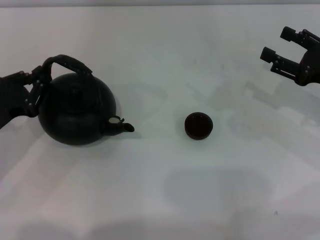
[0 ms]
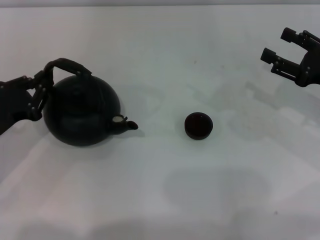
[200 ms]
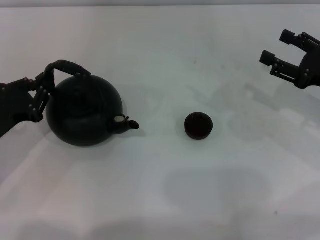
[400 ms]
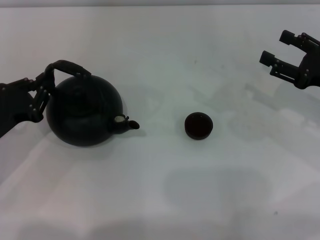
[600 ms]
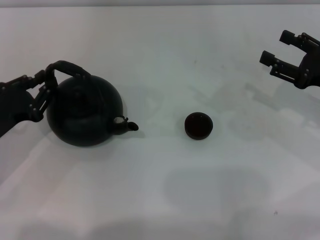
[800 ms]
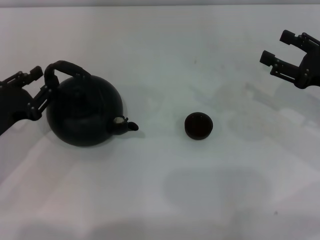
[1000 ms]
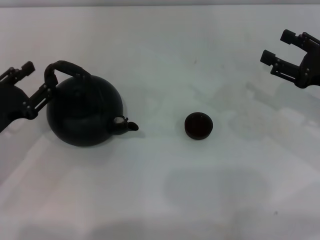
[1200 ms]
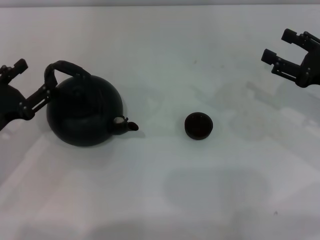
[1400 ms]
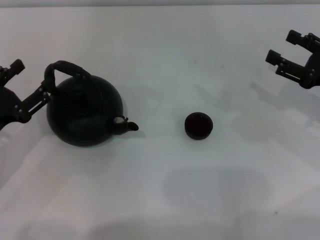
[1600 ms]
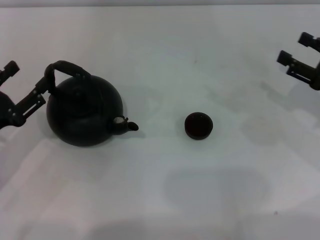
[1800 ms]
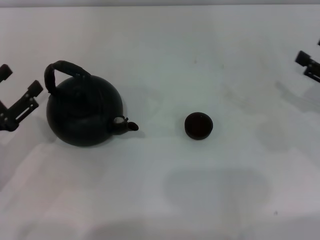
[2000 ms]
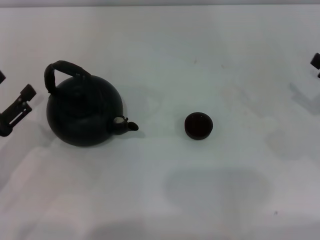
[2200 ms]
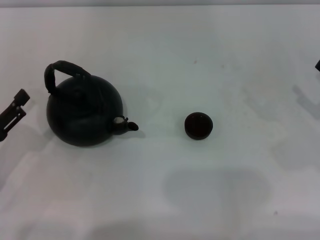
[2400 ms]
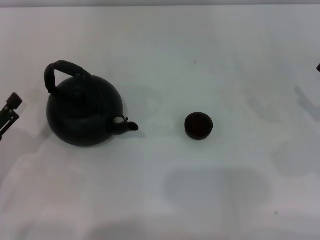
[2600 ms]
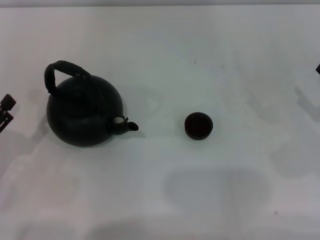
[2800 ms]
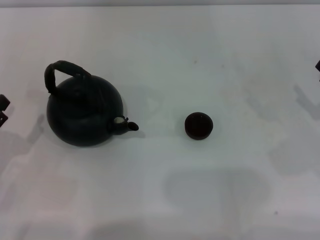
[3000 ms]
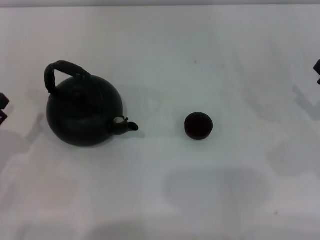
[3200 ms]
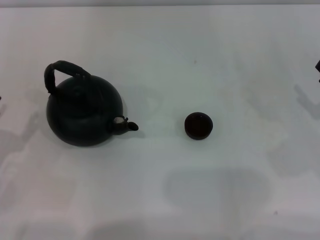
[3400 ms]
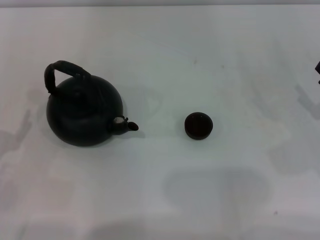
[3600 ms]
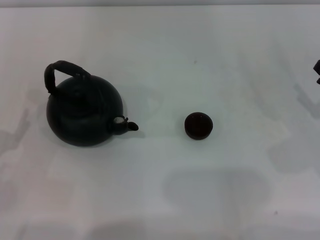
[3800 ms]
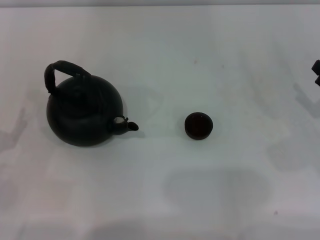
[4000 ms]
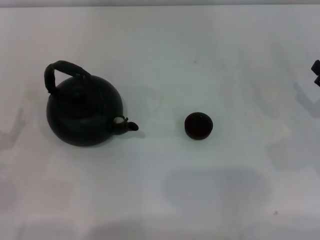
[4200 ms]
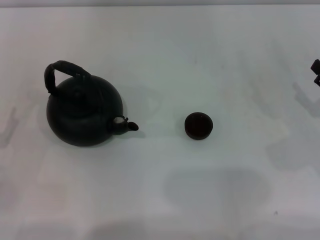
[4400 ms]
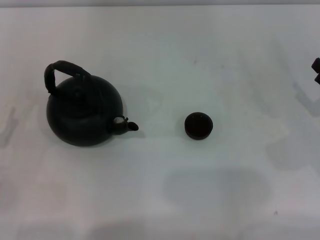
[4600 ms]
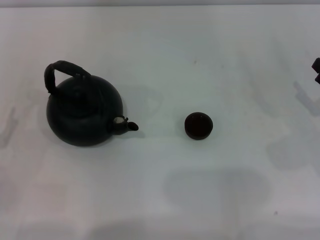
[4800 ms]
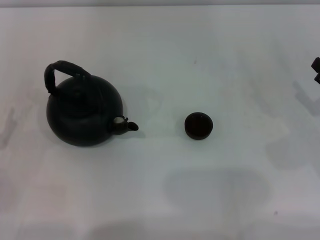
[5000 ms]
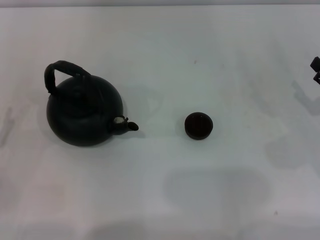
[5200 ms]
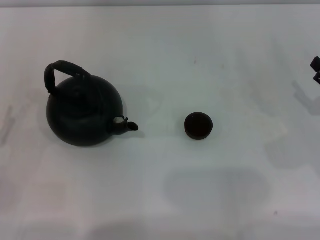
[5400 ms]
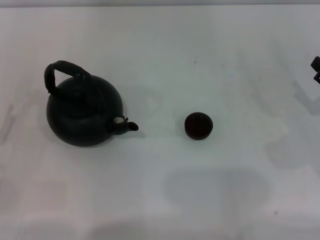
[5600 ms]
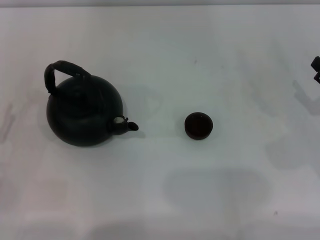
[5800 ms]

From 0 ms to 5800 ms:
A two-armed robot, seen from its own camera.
Task of the whole recording: Grasp the handle of the teapot with one hand and pour tea into the teacup.
Step, from 0 ms to 2000 ms: Put down the teapot with the left gripper.
From 0 ms to 1400 ms: The left gripper opens up.
From 1400 ms to 2800 ms: Both grippers move backward, about 5 cm.
From 4400 ms to 5800 ms: Both grippers stay put.

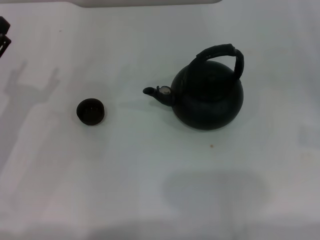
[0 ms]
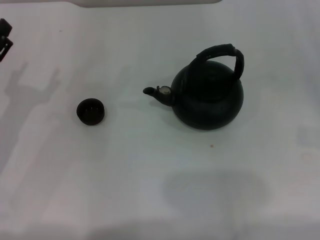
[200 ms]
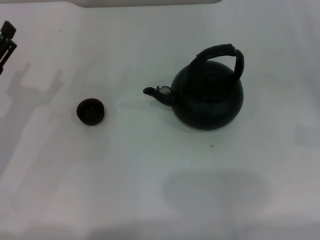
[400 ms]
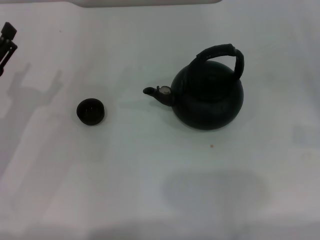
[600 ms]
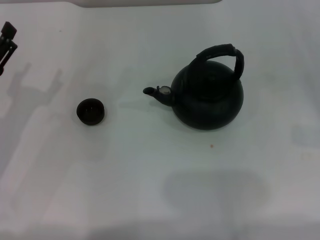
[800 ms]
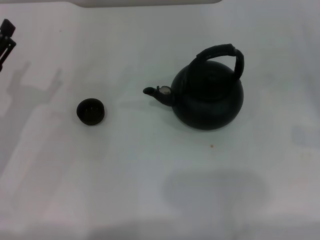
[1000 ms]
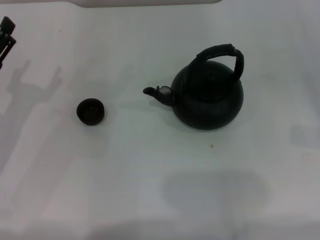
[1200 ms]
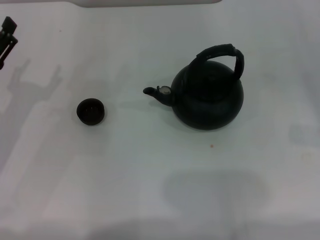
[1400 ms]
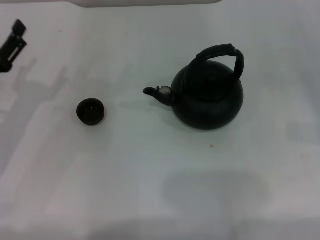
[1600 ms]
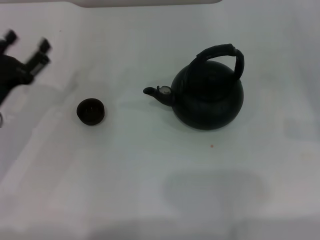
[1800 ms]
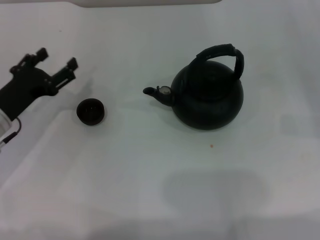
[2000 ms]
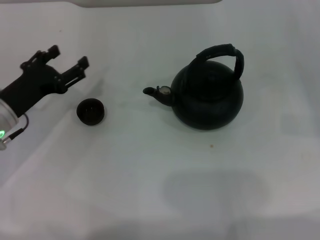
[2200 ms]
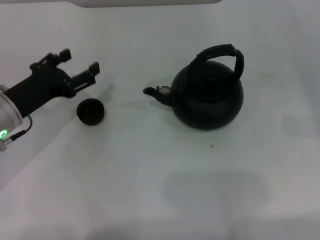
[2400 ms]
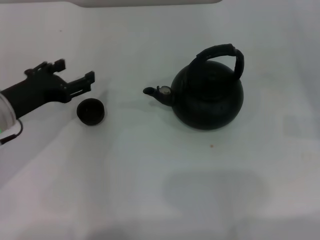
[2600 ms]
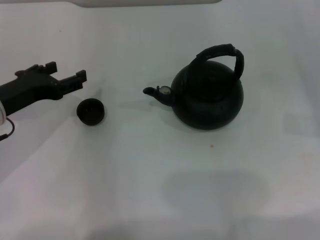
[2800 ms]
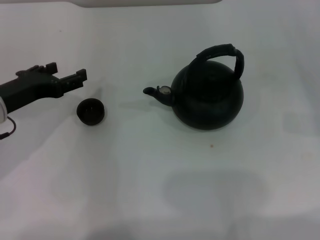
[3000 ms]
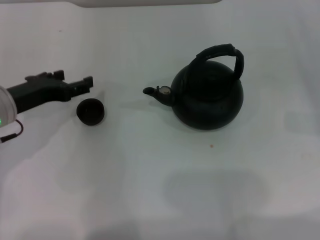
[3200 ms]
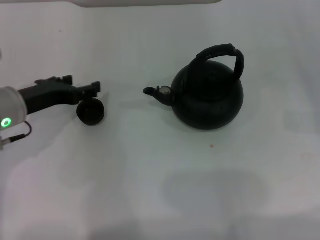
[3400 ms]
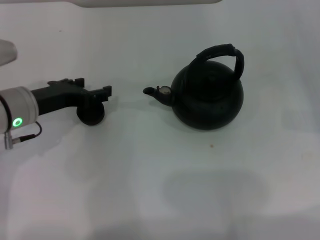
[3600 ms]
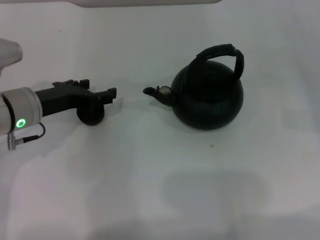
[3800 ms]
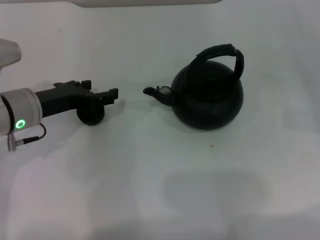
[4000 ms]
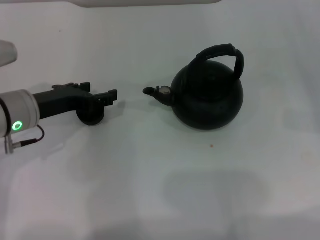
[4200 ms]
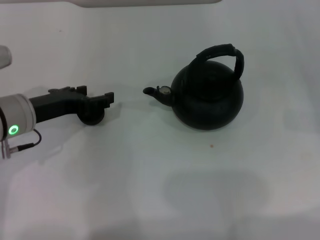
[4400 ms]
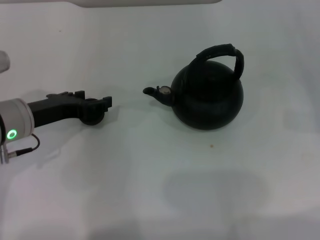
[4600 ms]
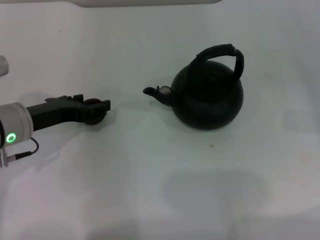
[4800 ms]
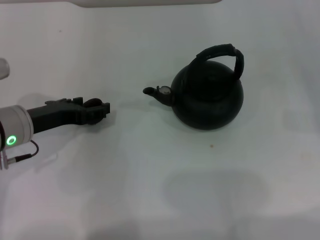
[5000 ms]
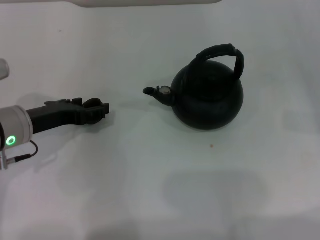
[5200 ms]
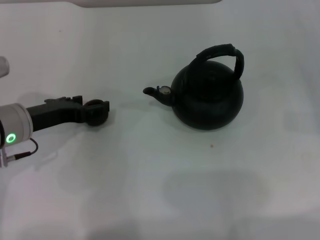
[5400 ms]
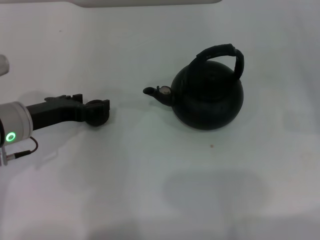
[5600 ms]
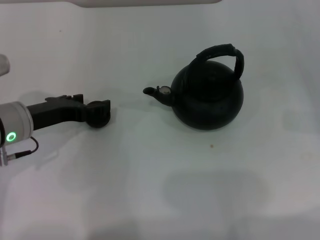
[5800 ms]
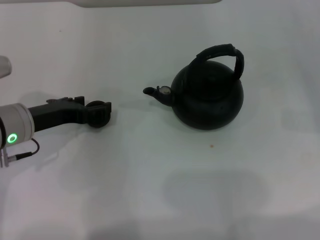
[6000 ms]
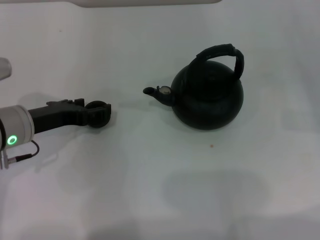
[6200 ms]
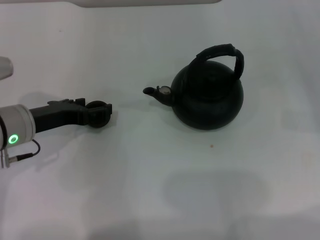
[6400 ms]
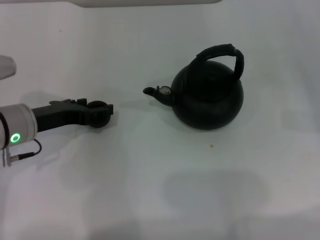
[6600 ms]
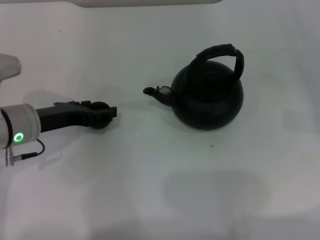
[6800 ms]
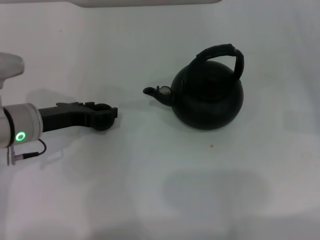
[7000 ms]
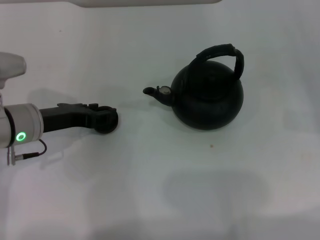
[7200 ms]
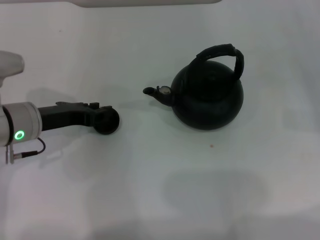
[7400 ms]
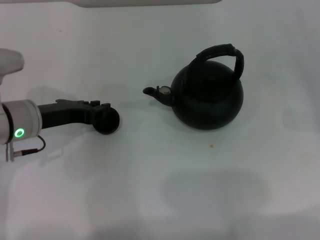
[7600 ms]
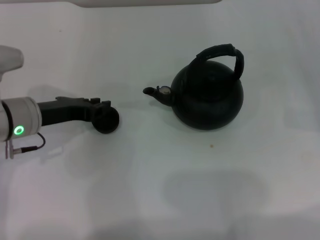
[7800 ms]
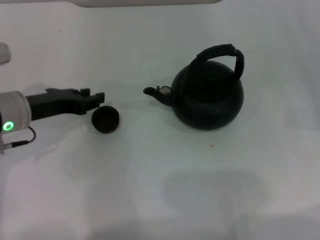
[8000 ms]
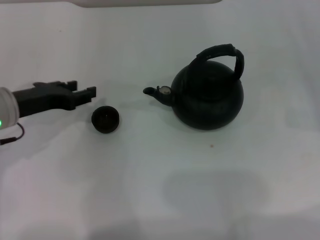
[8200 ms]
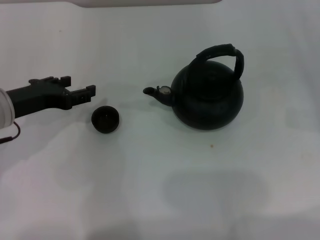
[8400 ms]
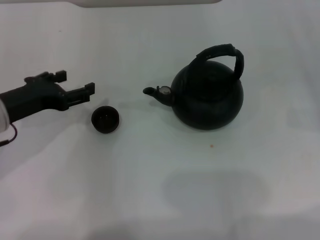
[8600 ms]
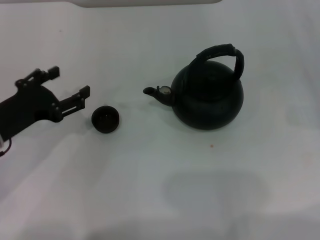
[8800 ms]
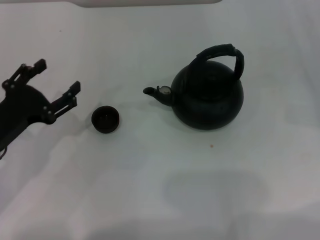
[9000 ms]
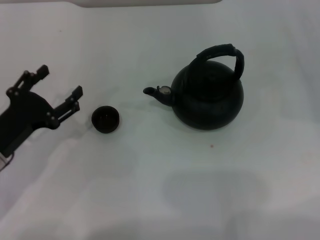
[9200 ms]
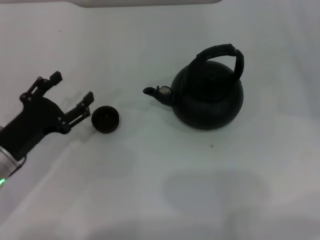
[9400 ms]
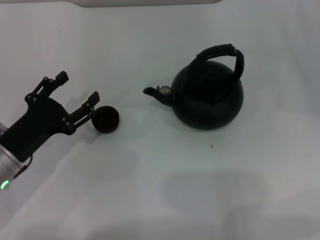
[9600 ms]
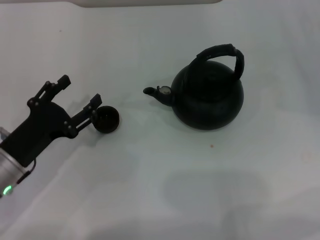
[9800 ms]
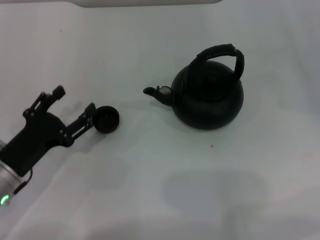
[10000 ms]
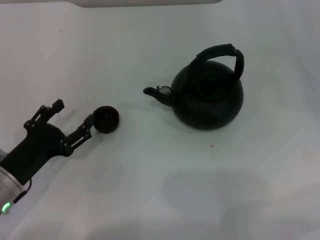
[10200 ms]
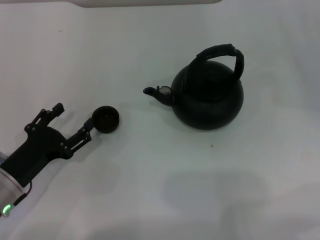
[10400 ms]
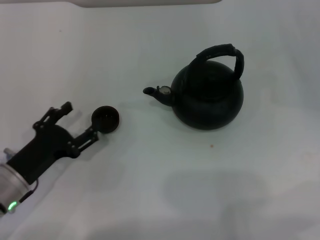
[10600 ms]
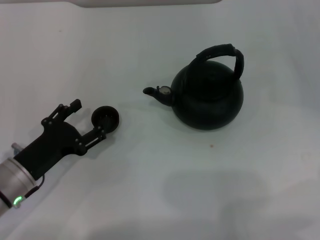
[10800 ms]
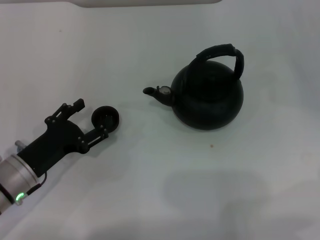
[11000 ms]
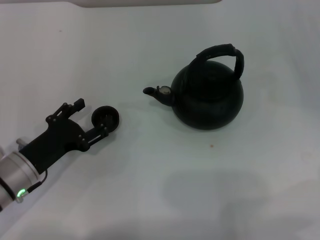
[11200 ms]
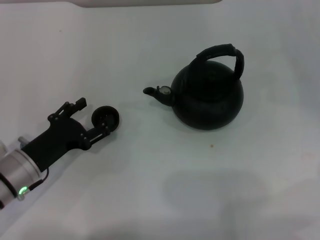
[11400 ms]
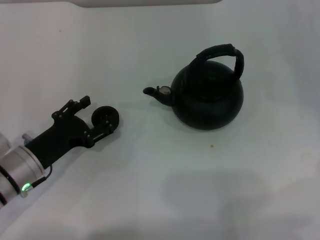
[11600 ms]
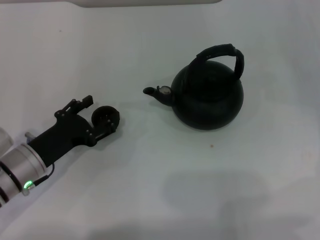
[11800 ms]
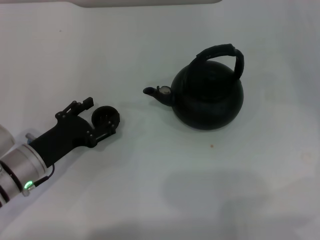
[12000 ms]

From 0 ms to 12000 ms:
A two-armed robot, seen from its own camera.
Task of the whole recording: Grasp the handle of the teapot with one hand and pour tea into the teacup.
From 0 ms to 1600 ms: The grippers make only small movements.
From 1600 ms to 3000 ms: The left gripper moves some 5 cm.
From 3000 ms to 6000 ms: The grippers make only small movements.
From 6000 ms to 7600 ms: The left gripper closes its fingers.
From 7600 ms to 9000 ms: The left gripper heads backward, covering some 5 cm, and opens up.
From 9000 ms to 10400 ms: The left gripper moves downward, about 5 cm.
From 10400 ms to 12000 ms: The grippers stay close to where they were, moving slightly.

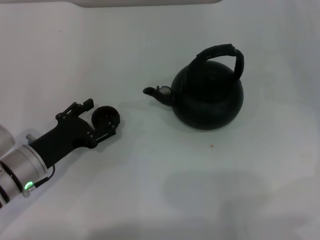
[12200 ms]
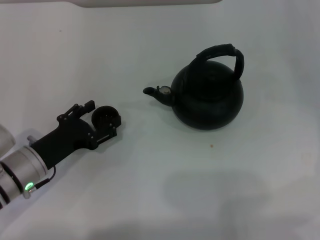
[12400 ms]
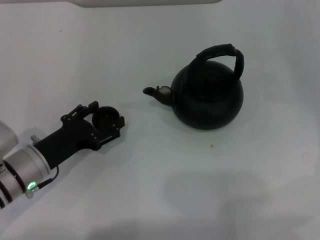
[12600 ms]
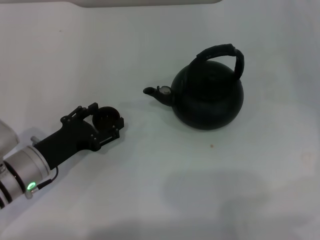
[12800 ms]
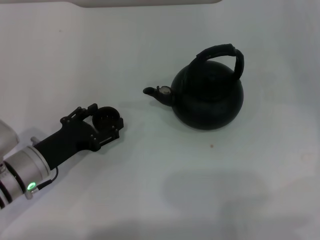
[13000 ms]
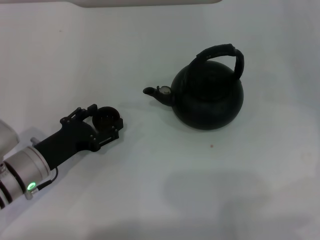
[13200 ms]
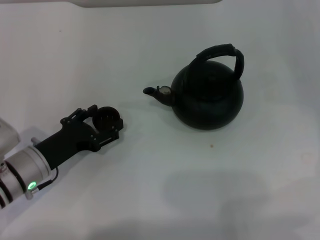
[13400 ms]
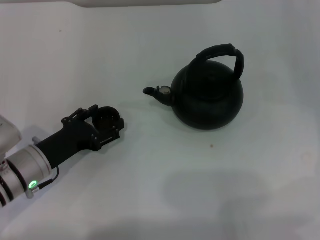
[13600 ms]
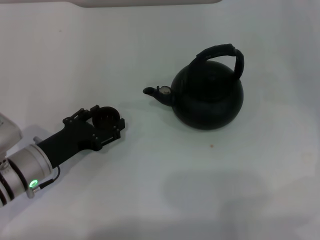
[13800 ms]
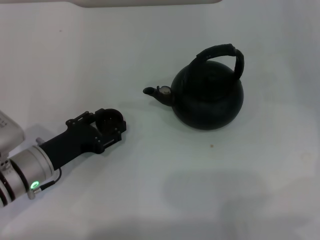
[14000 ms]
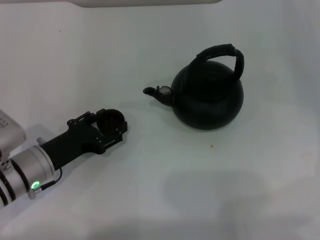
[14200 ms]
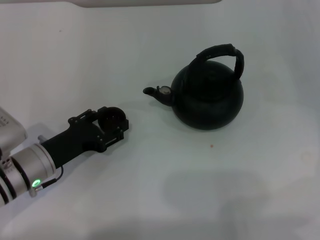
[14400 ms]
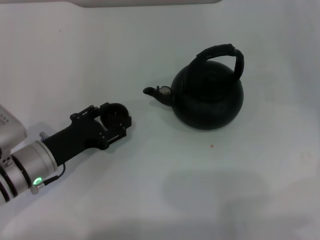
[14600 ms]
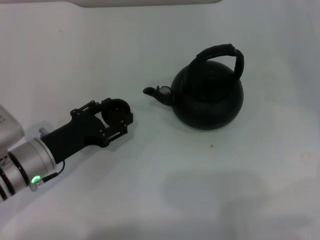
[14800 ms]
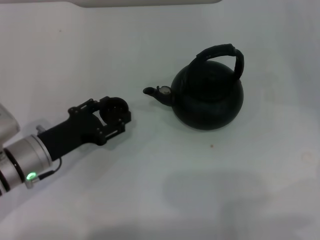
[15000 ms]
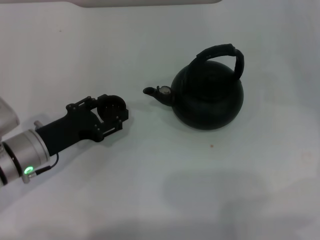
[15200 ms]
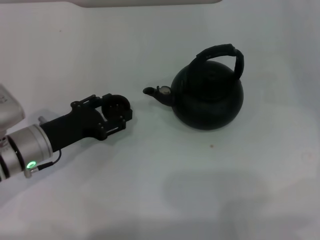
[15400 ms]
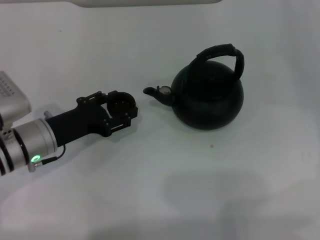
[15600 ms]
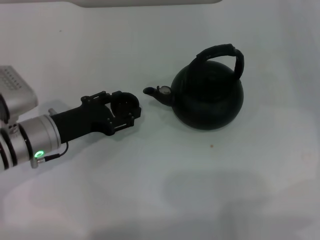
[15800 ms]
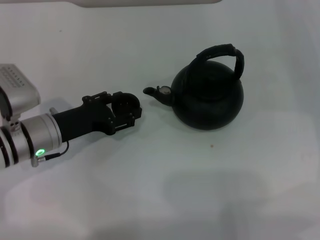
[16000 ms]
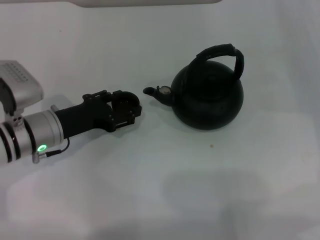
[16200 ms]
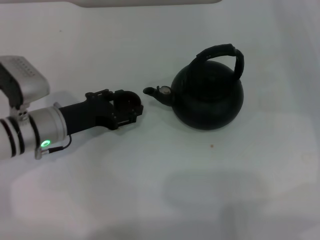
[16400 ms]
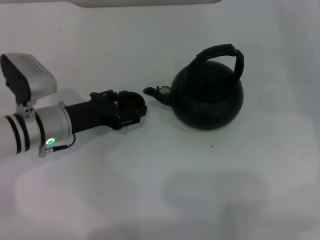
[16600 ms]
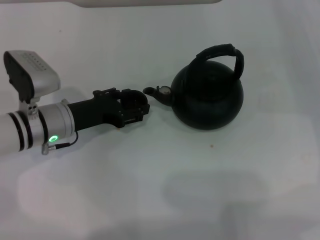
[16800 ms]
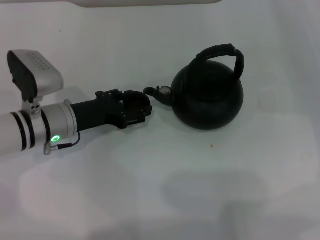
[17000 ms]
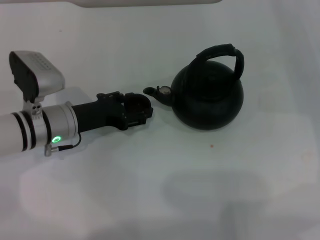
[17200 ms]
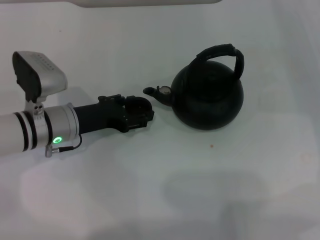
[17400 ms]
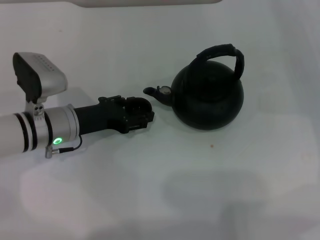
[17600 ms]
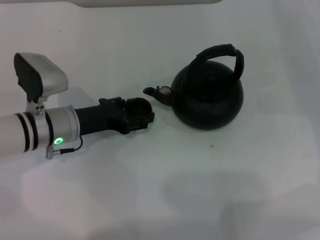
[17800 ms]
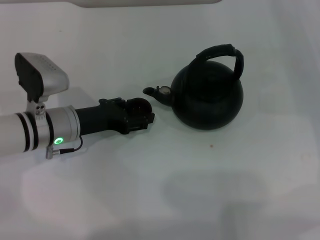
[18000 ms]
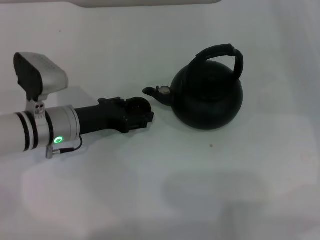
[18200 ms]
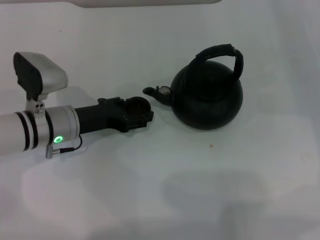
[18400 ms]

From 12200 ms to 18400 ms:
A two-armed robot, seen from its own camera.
Task of the whole recording: Grasp the handle of the teapot with one hand and pour tea into the teacup.
Step, from 12200 ms to 14600 ms: Pick up the teacup with the left gripper.
From 12200 ms to 13800 ms: There are only small adjustments of the grippers.
From 13800 ms to 15400 ms: The left gripper closes its fingers.
From 15400 ms to 16800 ms: The left gripper moves some 5 cm.
From 16800 ms to 18400 ms: The grippers make only small movements.
